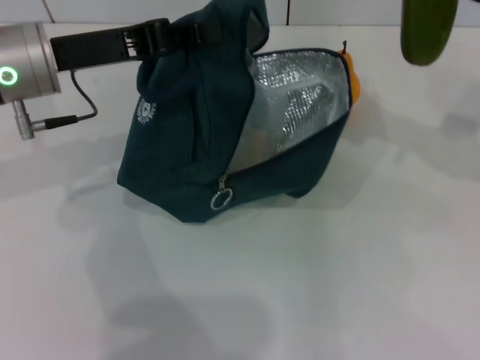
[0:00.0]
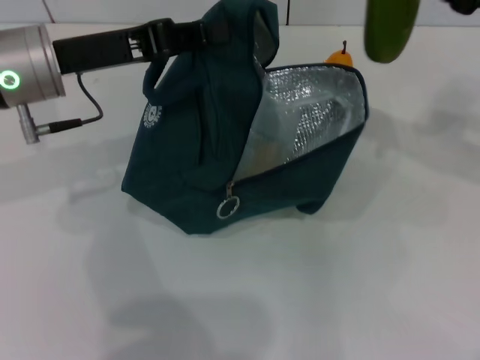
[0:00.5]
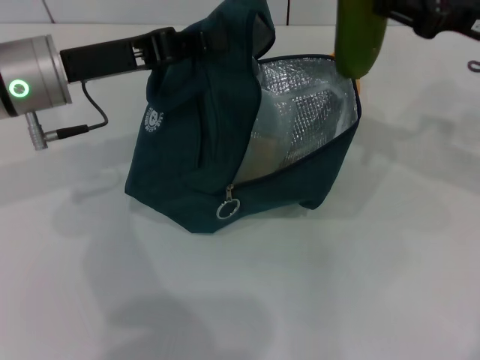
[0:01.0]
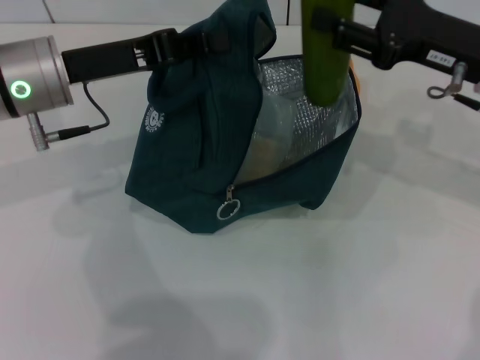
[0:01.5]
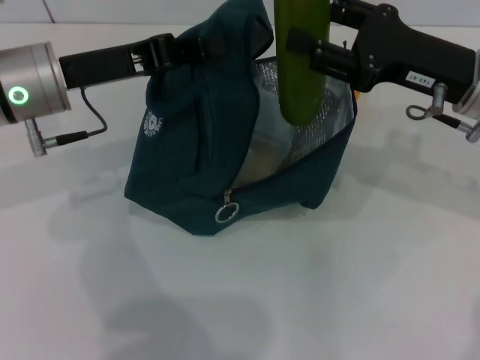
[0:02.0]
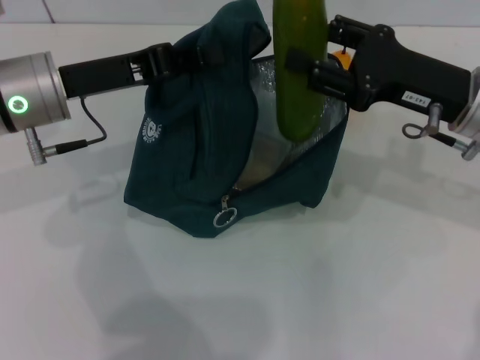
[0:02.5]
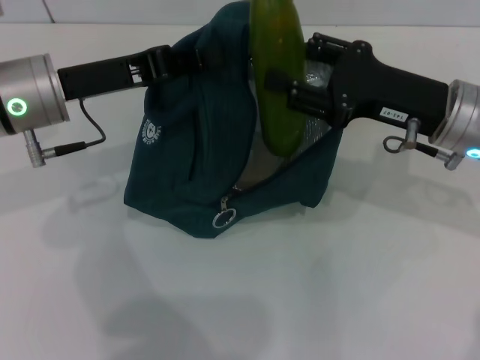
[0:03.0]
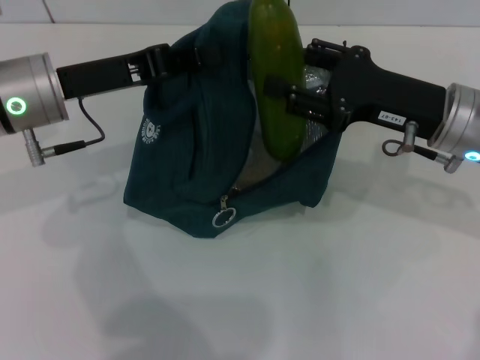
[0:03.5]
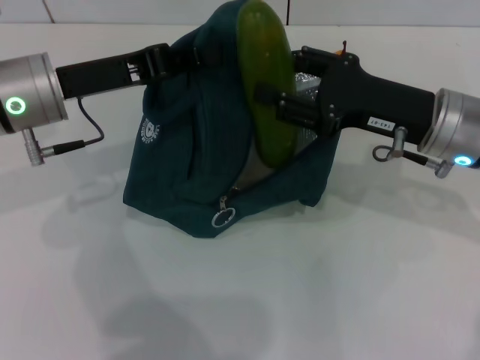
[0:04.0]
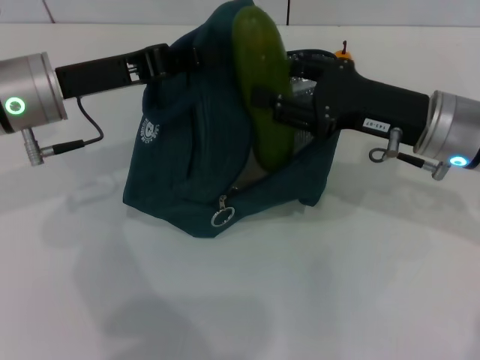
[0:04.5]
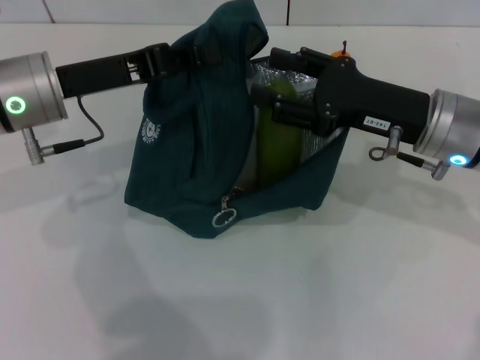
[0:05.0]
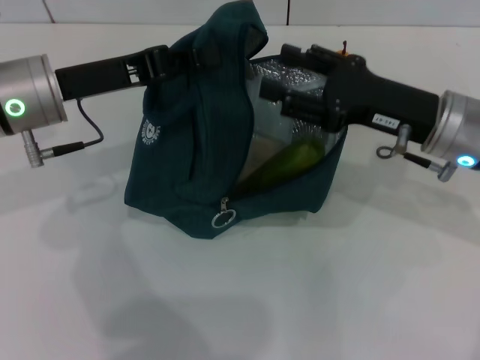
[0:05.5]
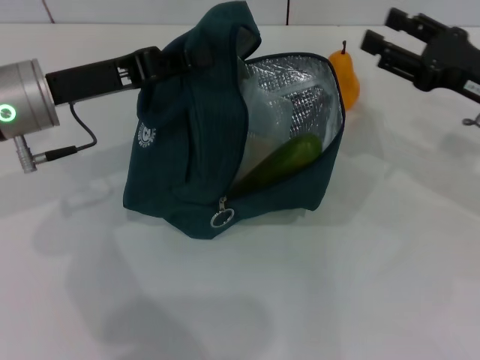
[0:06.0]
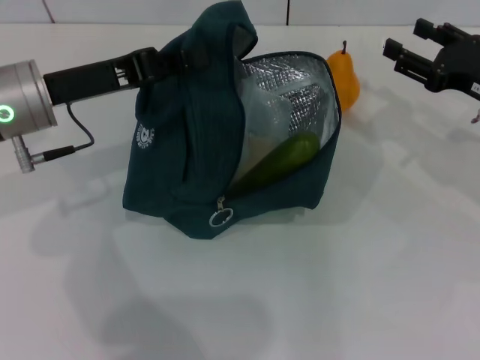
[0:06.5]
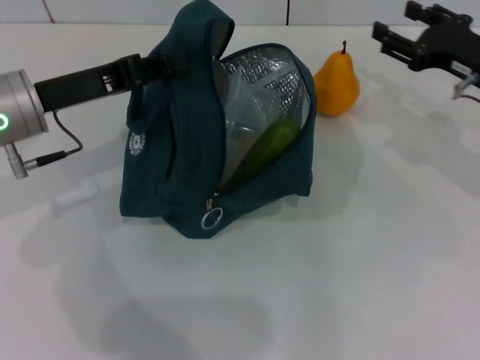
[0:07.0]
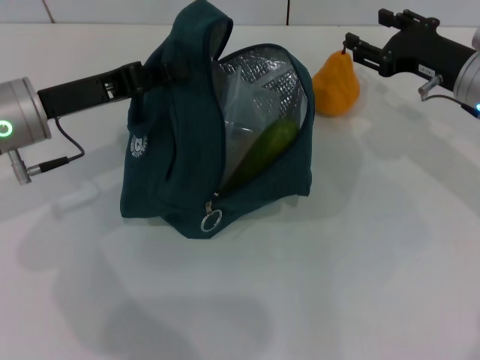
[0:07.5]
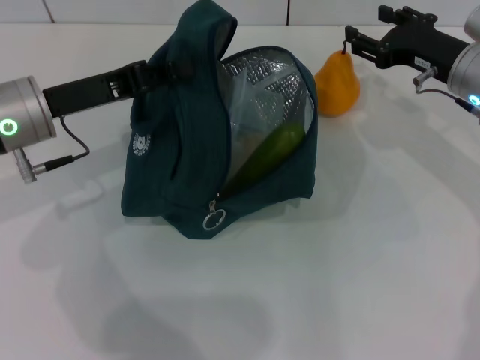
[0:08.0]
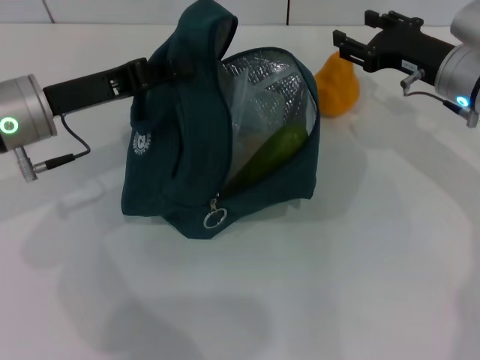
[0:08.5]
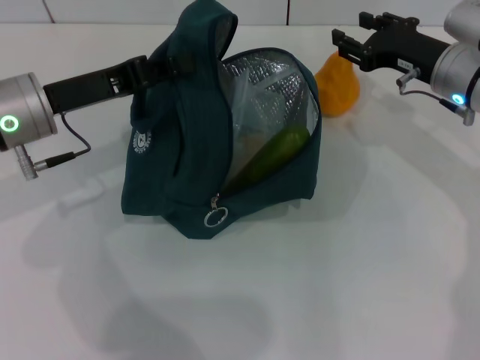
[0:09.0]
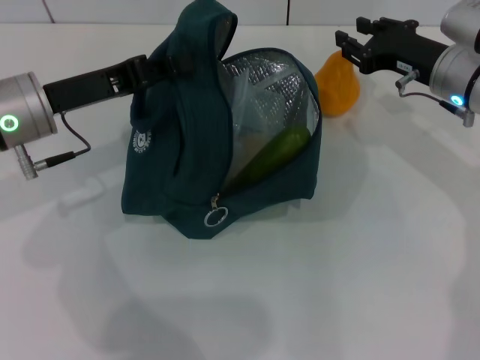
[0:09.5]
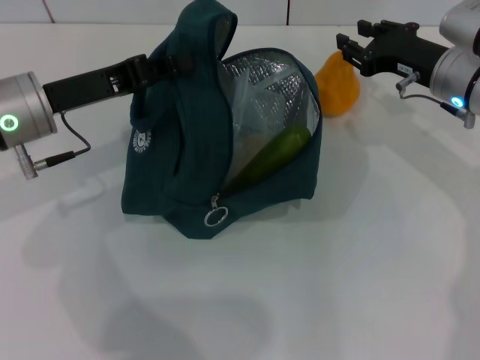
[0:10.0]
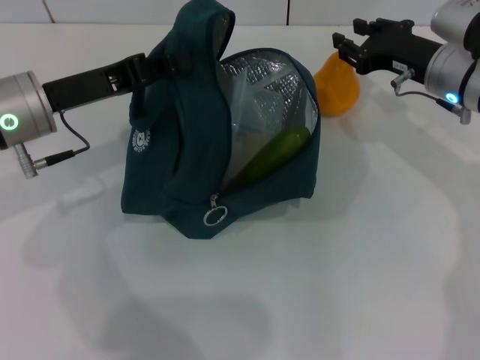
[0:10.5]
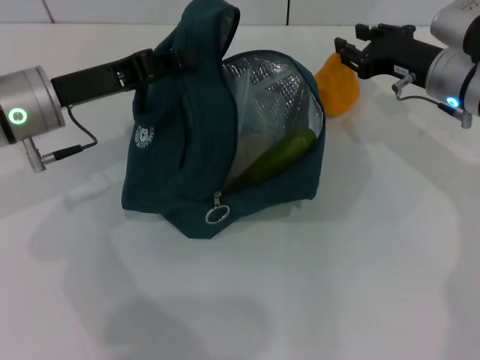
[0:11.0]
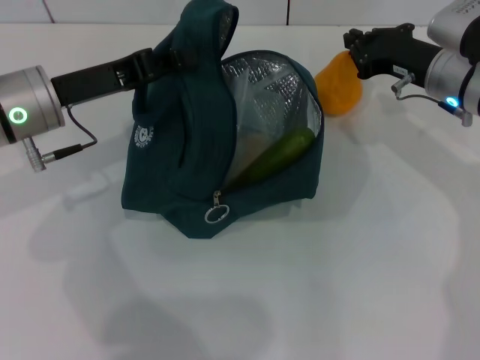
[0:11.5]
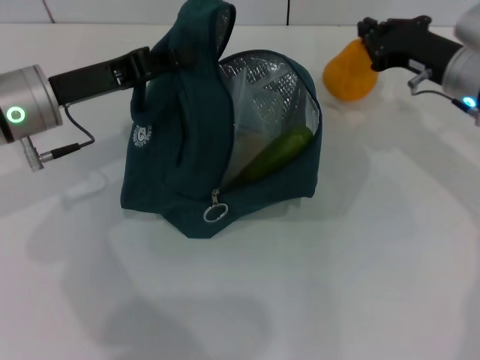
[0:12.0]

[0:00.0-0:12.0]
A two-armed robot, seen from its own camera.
Step, 0:00.0 to 0:05.5: Put the cucumber into the lunch bag with your right hand.
Step, 0:06.0 to 0:11.5: Grab the pear with your right hand.
0:00.0 to 0:02.0: The right gripper goes about 10 cm to the left and downward.
0:04.0 to 0:06.0: The right gripper shifts some 5 cm to the right.
0:06.0 to 0:08.0: The right gripper travels forward by roughly 5 cm.
0:08.0 to 0:10.0: There are only small adjustments of the grippers.
0:10.0 to 0:12.0: The right gripper closes its fingers.

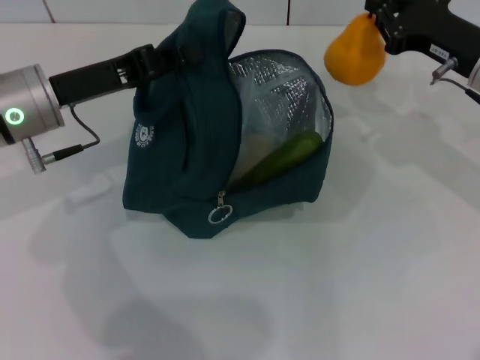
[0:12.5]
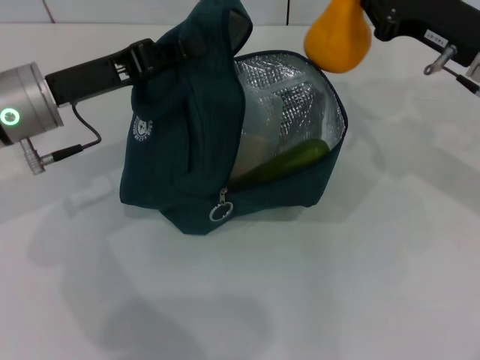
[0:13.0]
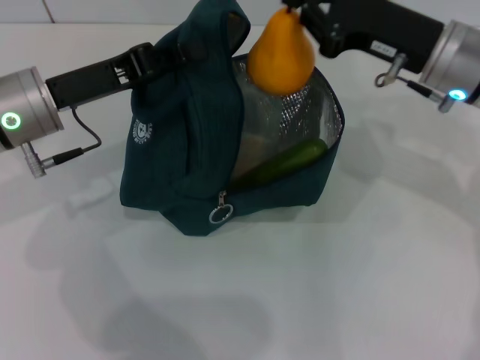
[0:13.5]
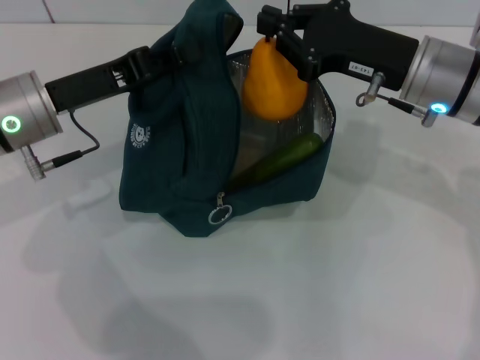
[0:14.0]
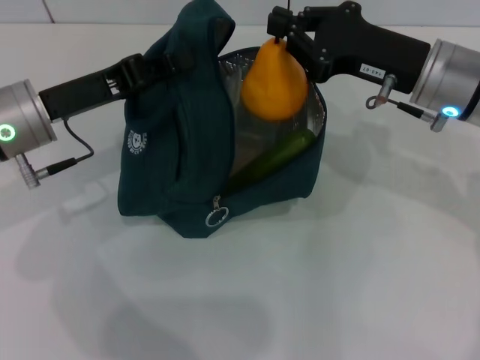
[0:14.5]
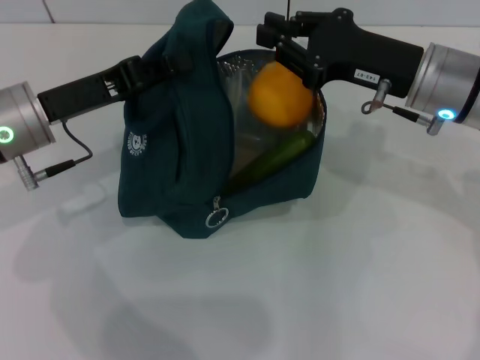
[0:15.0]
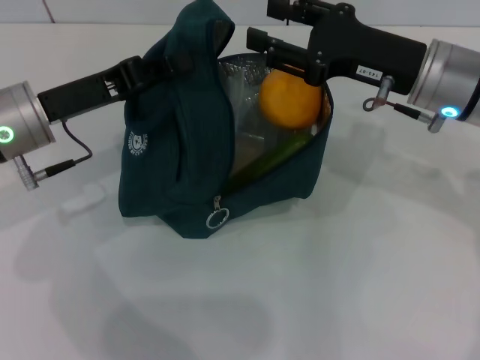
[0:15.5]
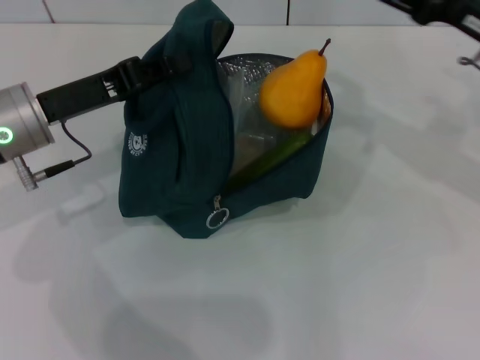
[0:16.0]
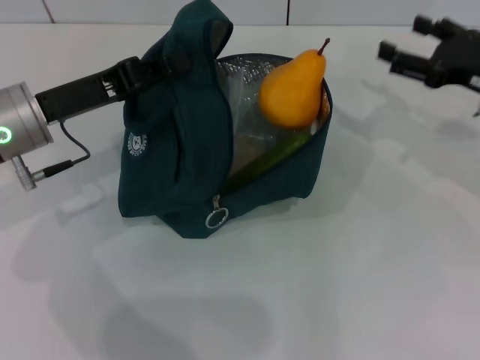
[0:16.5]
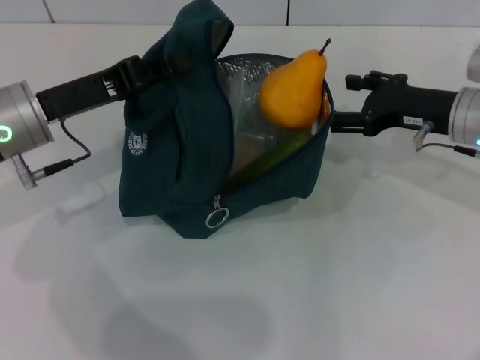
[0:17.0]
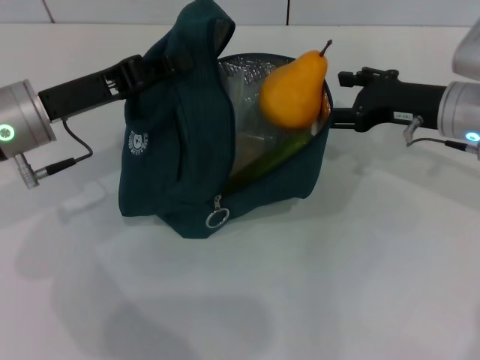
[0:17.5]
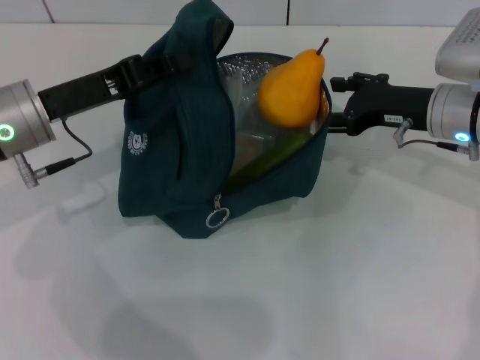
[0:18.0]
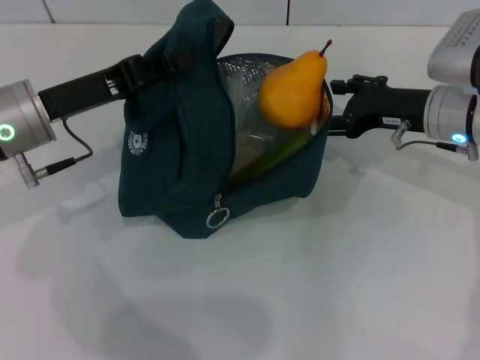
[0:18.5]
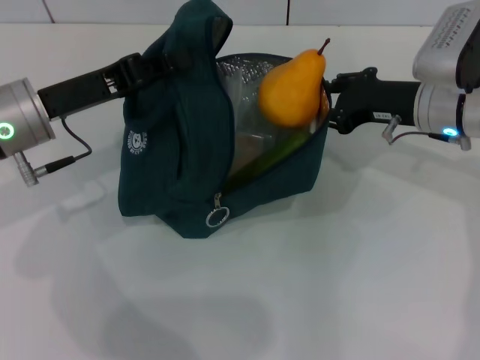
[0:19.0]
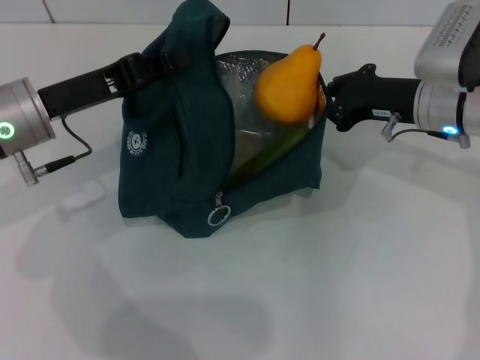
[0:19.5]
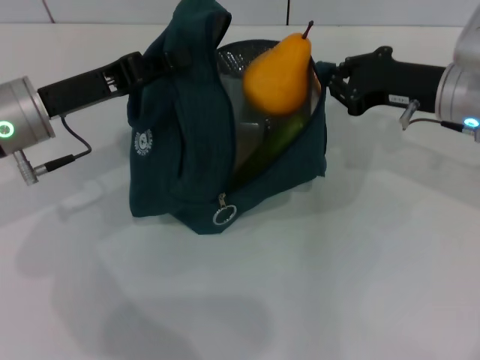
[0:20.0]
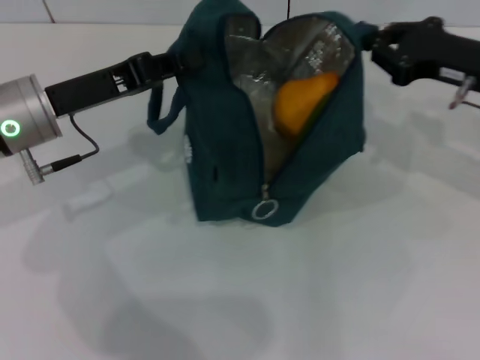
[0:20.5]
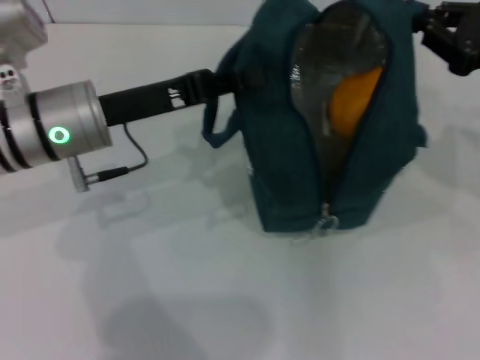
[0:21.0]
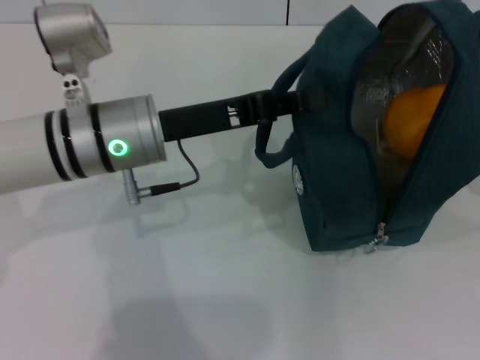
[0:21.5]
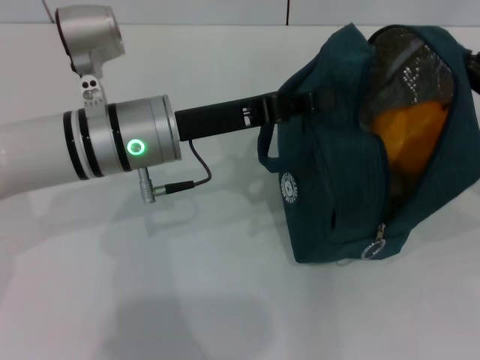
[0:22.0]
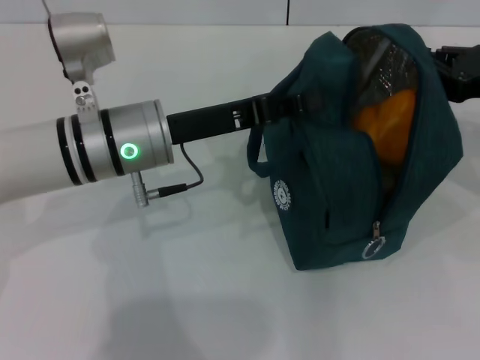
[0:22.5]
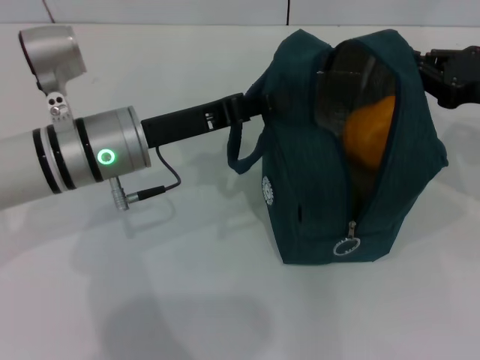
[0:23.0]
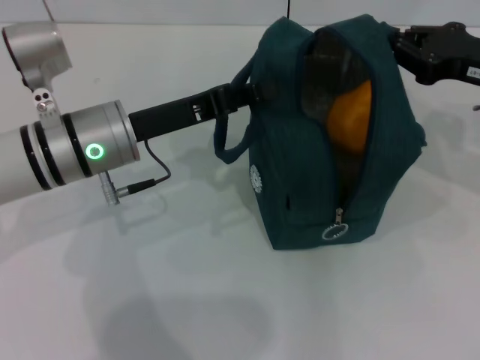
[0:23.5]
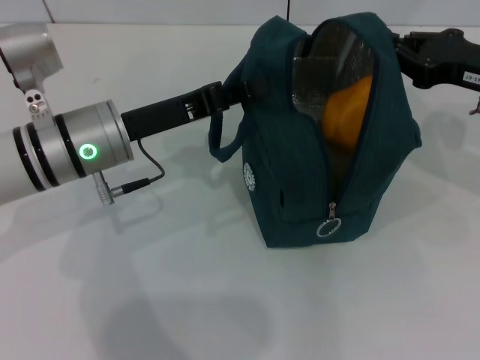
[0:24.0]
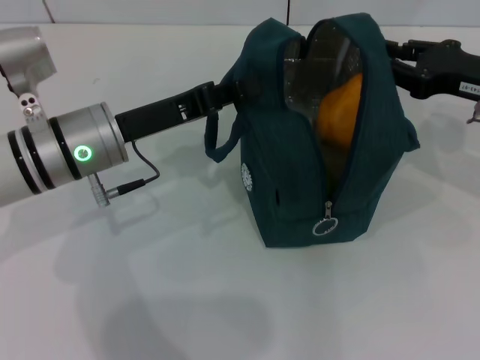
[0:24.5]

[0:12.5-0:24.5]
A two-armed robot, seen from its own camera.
0:12.5 to 0:14.5: The right gripper goes about 5 cm to the left.
0:14.5 to 0:16.5: The right gripper heads to the right, covering about 10 cm, and opens up.
0:16.5 to 0:18.5: The right gripper is displaced to the left by some 10 cm.
0:18.5 to 0:20.5: The right gripper moves about 5 cm, and closes.
0:20.5 to 0:22.5: The left gripper is displaced to the right by approximately 10 cm.

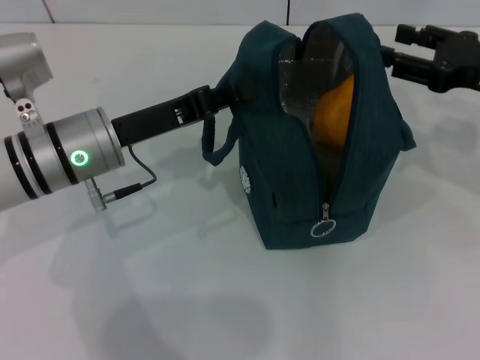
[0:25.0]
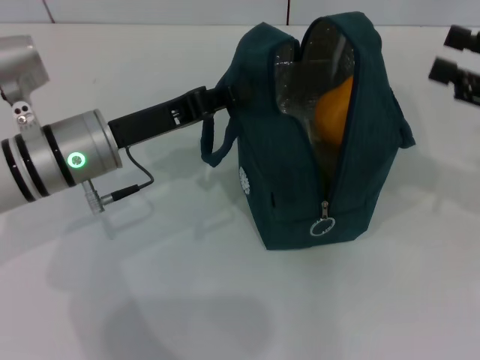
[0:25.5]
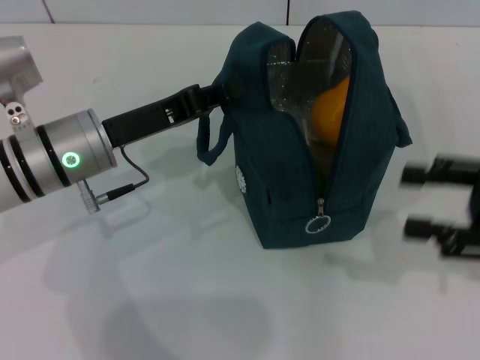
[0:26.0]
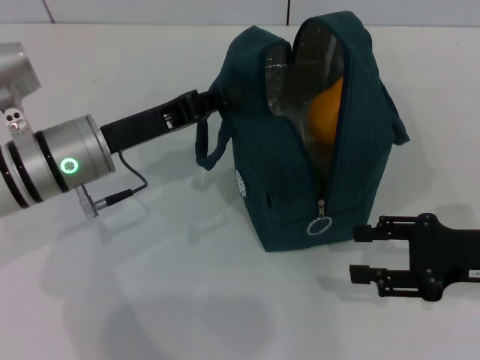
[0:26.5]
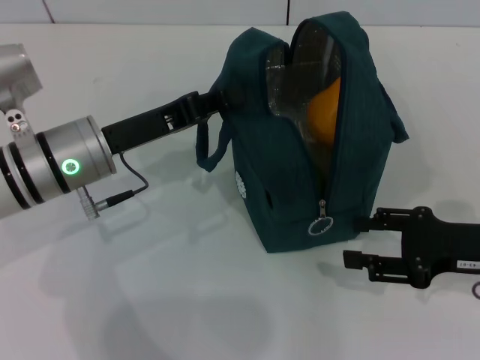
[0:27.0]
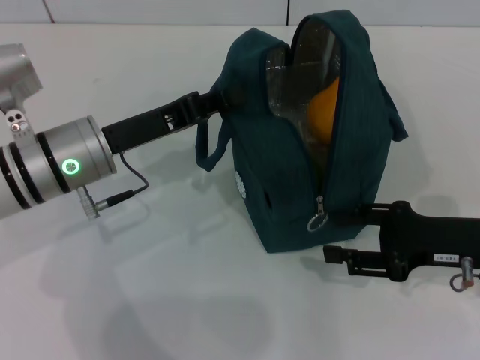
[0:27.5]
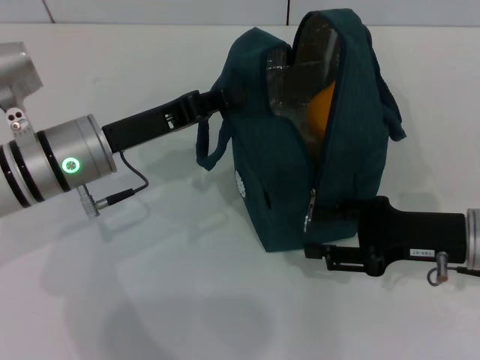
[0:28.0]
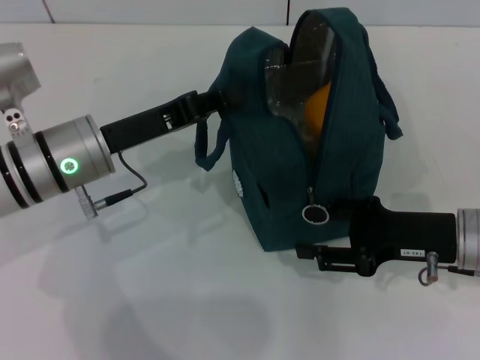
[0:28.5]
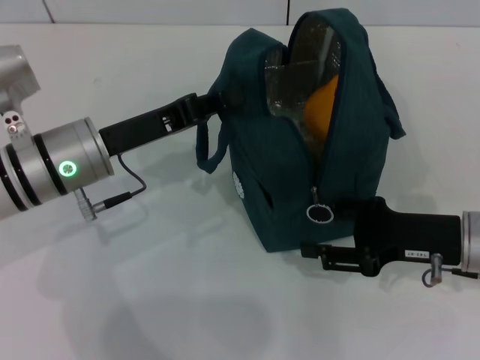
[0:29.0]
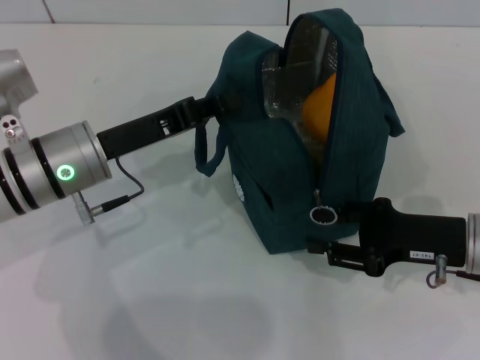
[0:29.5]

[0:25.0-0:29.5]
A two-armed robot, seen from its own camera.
0:25.0 to 0:27.0: The right gripper moves backward and downward, some 15 cm.
0:27.0 to 0:29.5: The grippers stay close to where they were, moving slightly.
